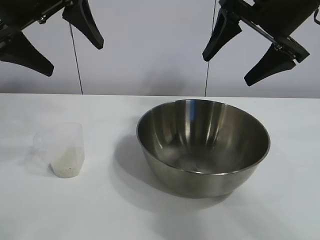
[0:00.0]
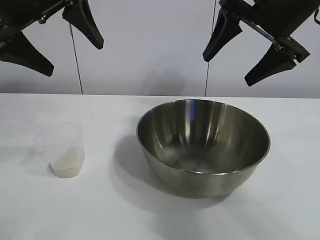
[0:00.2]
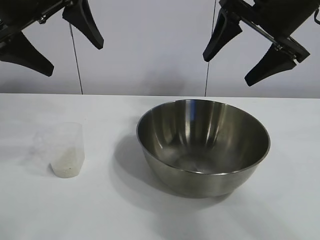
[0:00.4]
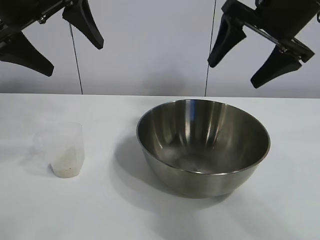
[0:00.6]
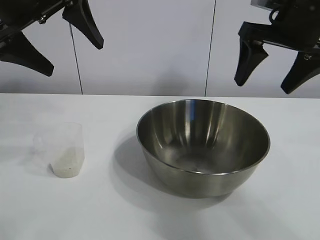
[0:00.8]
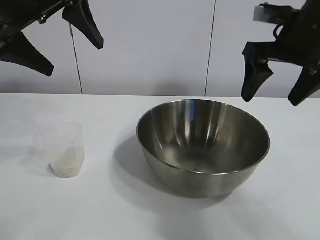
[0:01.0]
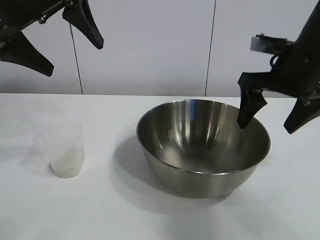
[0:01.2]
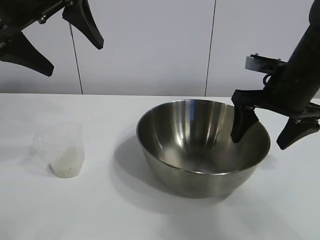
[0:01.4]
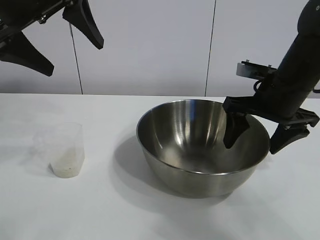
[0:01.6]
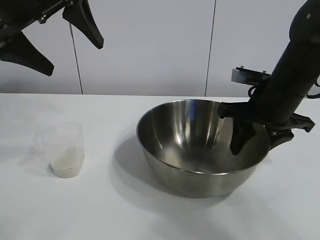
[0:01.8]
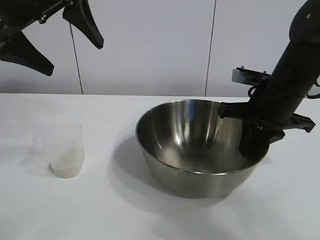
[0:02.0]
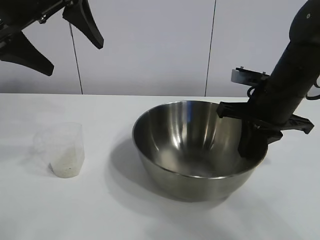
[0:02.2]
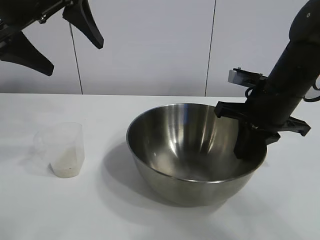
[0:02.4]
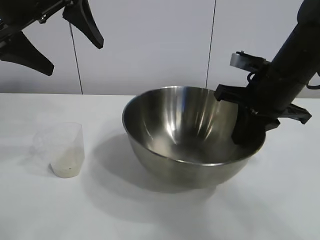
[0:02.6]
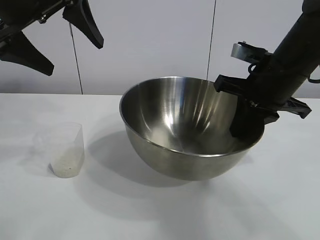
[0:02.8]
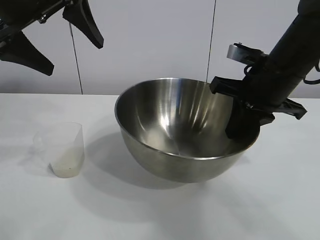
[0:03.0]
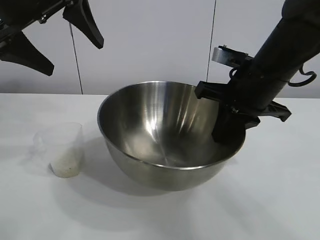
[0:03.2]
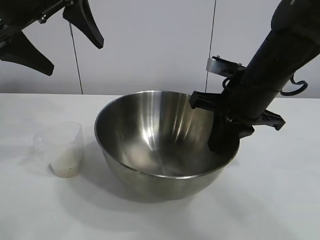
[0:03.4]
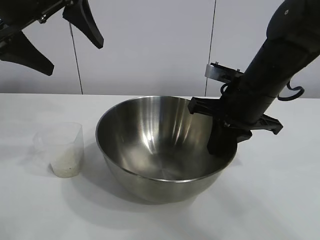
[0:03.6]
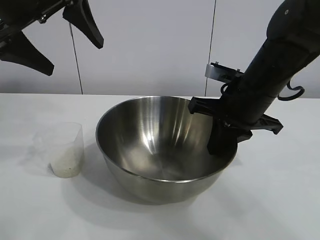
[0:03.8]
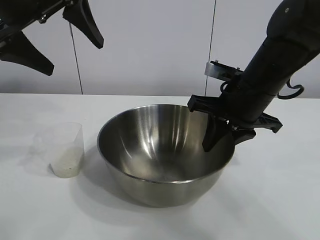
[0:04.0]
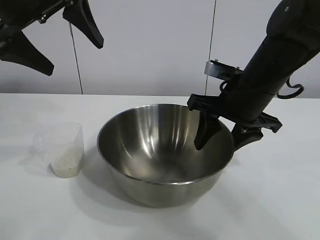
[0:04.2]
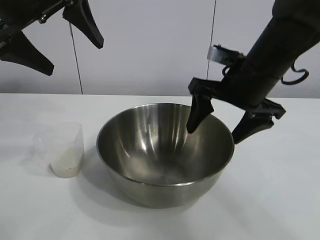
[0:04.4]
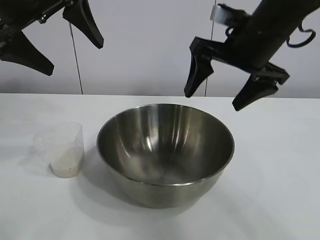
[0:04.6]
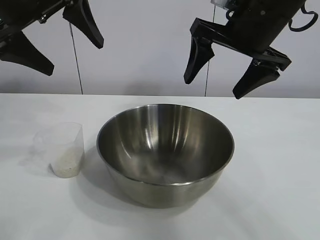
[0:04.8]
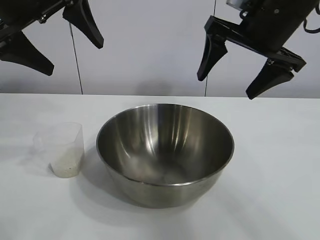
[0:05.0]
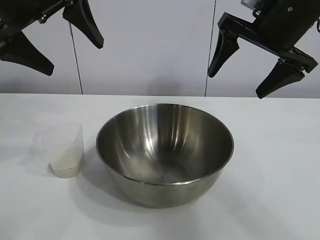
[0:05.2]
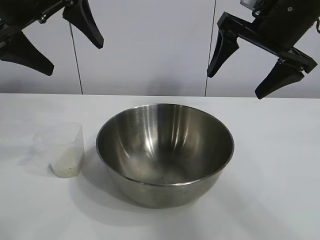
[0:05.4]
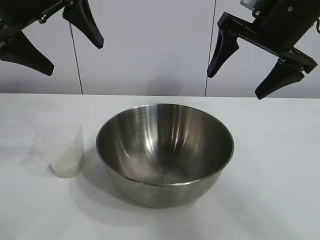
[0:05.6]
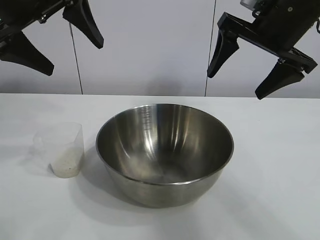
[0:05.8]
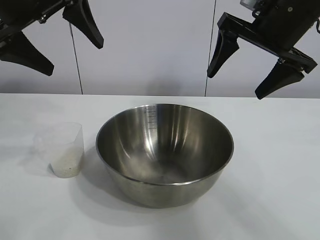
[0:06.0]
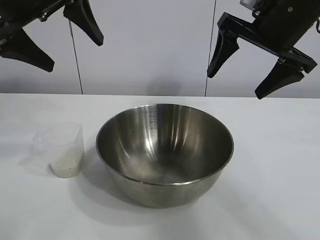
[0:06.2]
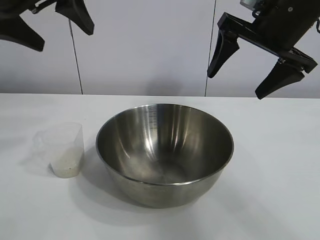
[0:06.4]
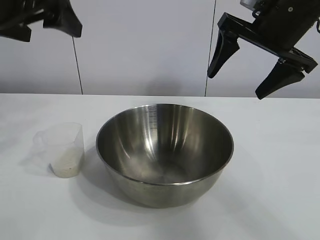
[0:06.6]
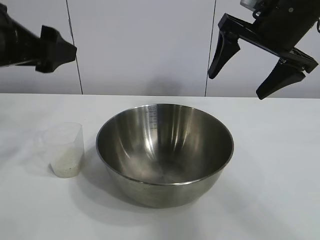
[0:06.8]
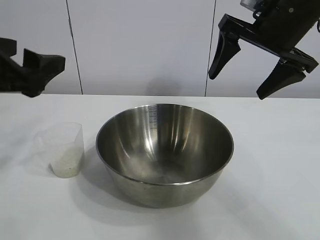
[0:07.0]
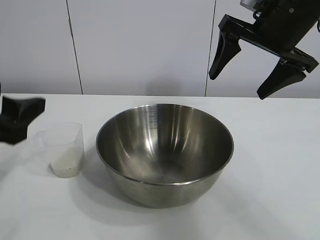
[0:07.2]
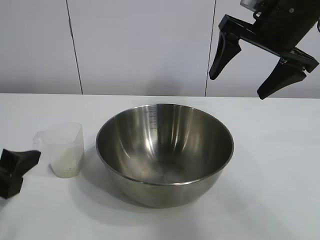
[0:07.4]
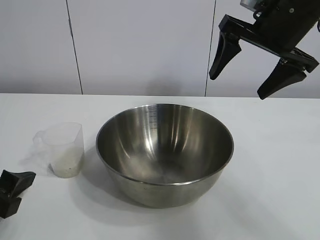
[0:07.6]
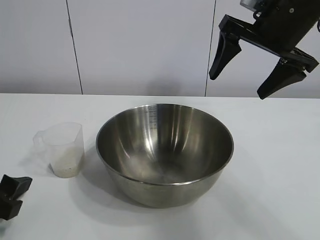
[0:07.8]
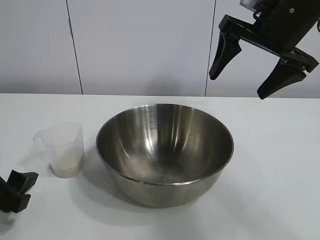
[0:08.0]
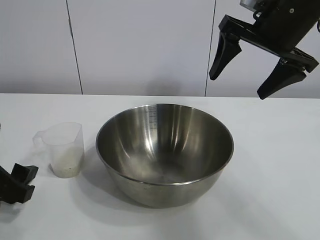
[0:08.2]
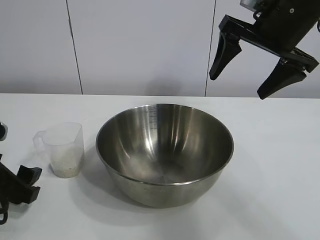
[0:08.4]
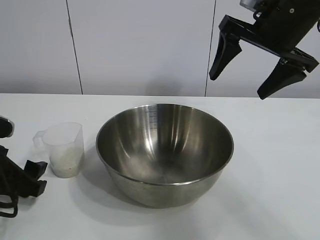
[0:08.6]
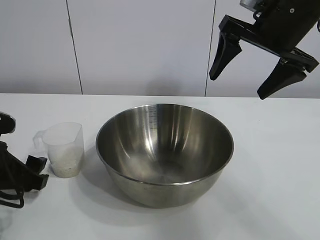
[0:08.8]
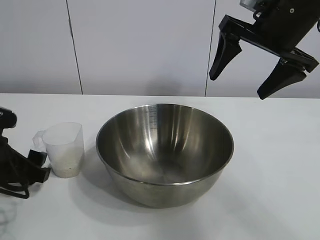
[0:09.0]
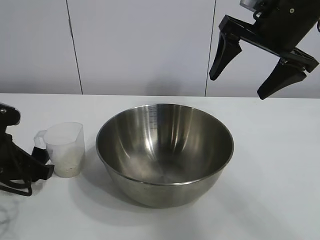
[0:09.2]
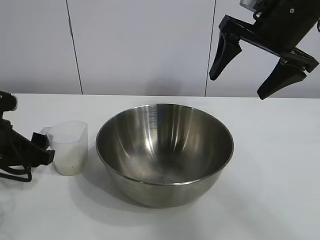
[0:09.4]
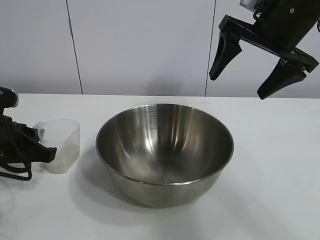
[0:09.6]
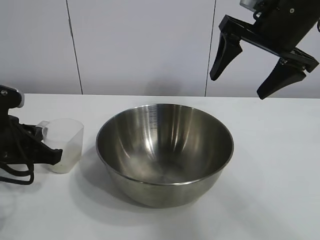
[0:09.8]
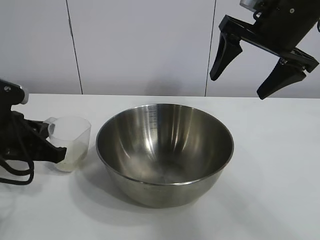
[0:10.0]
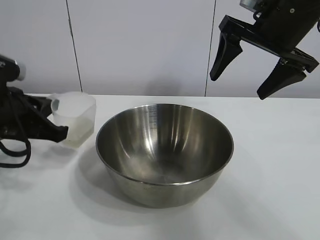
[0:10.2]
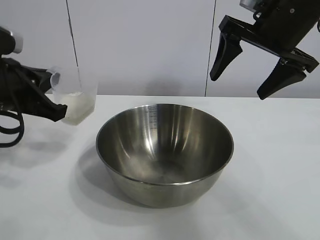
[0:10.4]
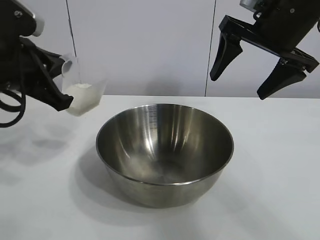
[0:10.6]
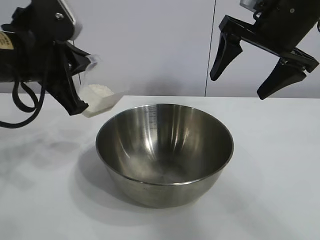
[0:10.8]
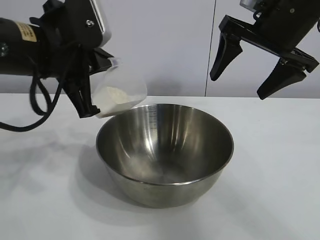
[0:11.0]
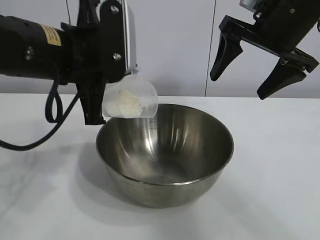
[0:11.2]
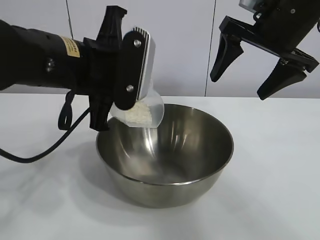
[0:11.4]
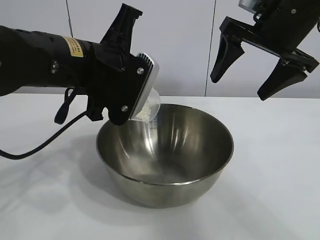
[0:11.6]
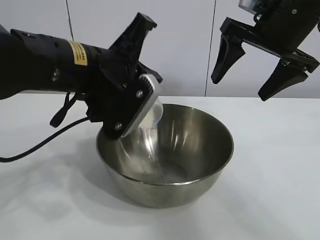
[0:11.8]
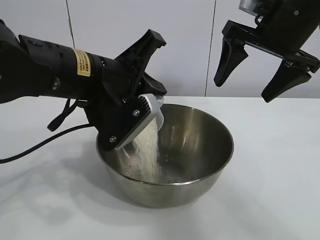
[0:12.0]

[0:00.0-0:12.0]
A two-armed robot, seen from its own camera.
Task of the whole recording: the right gripper grasp the rice container and place it in the center of the table, the left gripper grasp the rice scoop and pour the rice into the rice container.
Step, 0:00.6 to 0:04.0: Move the bowl in the center of view with right gripper.
Step, 0:04.2 to 0:10.0: Grasp the cup with rice in it with left gripper.

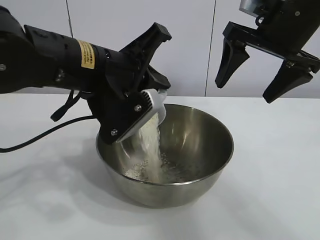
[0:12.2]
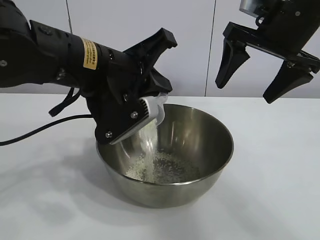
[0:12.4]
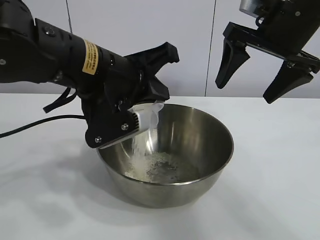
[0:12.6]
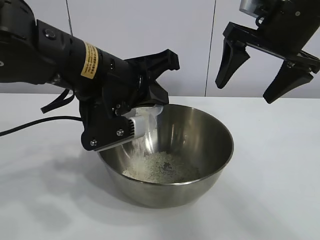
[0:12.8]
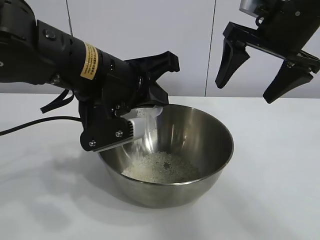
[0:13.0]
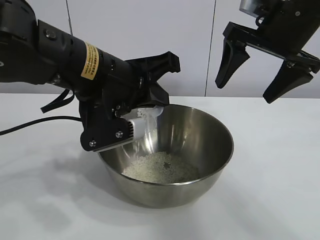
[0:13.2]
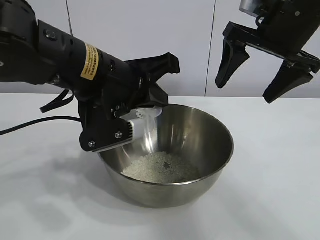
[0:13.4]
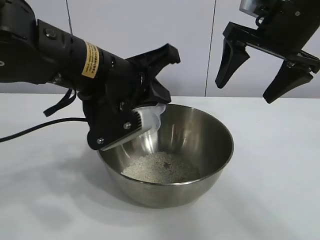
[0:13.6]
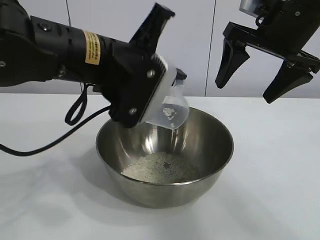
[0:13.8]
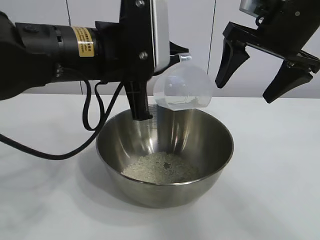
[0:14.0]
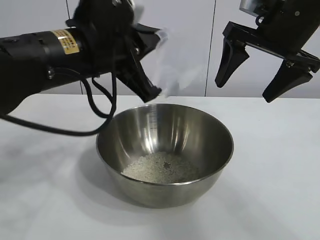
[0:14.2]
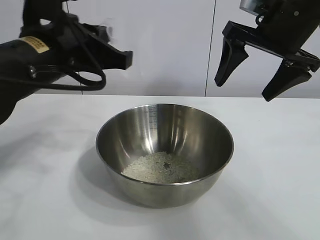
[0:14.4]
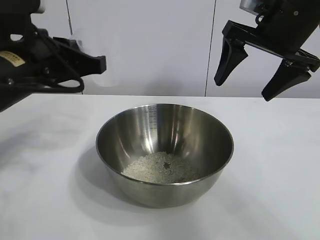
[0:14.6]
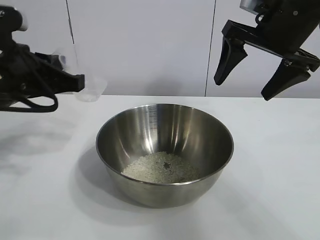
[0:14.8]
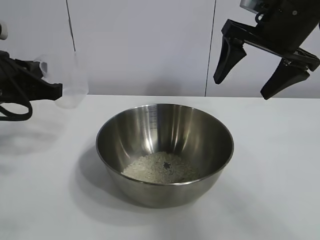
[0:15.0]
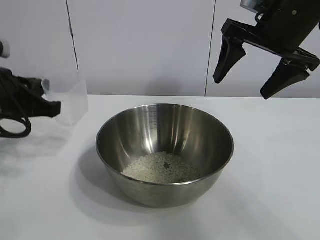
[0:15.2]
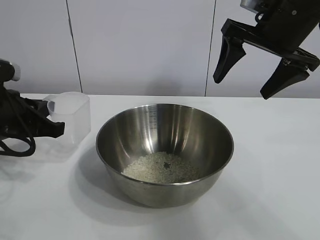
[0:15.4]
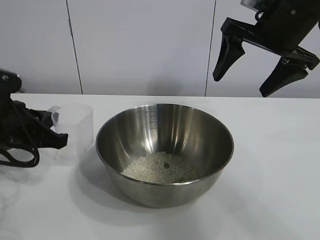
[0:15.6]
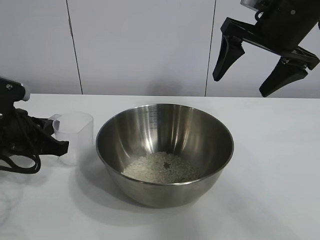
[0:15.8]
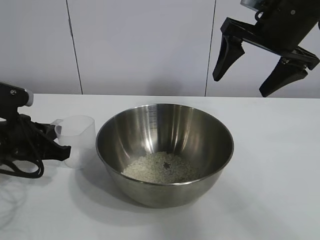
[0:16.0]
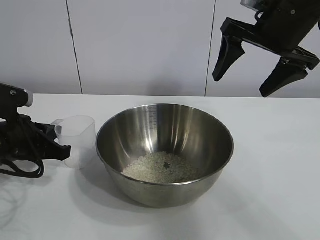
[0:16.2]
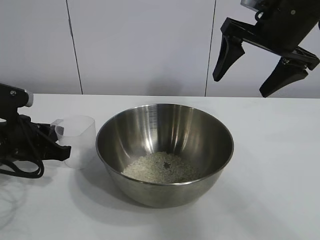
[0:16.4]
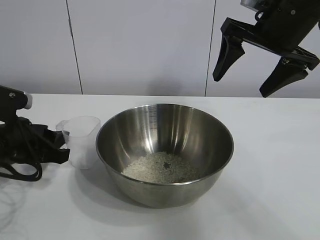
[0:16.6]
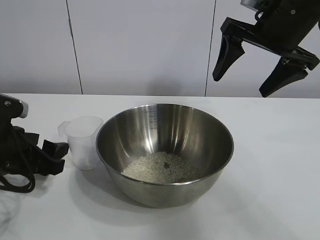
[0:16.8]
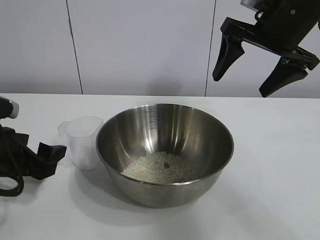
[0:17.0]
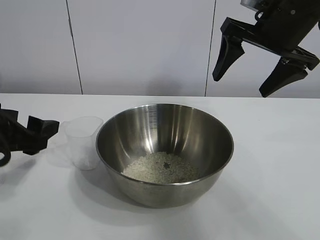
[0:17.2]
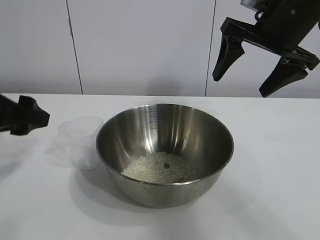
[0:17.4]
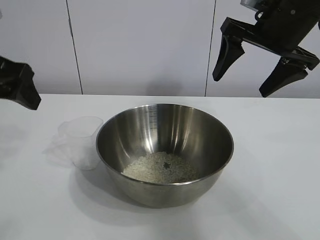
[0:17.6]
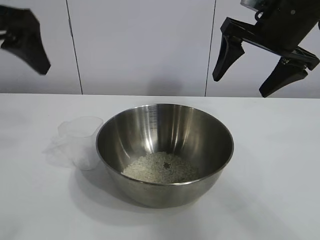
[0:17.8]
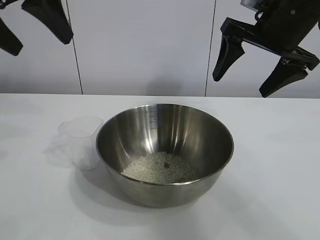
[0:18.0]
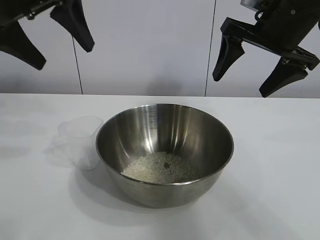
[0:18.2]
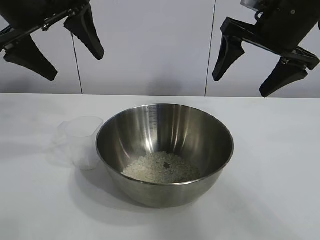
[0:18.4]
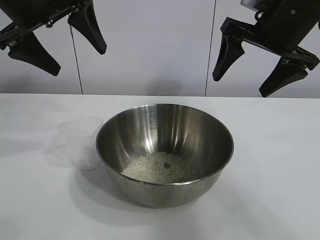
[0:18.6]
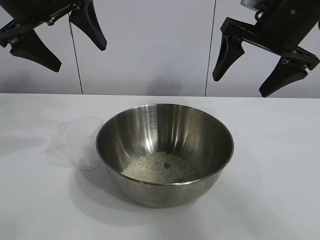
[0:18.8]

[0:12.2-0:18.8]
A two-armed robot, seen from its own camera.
Task of the whole recording: the right gripper grasp the rice container and place it in the center of the table, the left gripper grasp the rice scoop and pour the rice into the rice container.
Step, 0:13.6 to 0:16.4: Place the cup on the table with the left gripper.

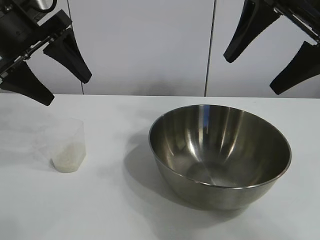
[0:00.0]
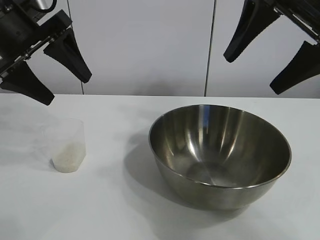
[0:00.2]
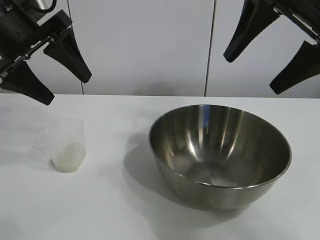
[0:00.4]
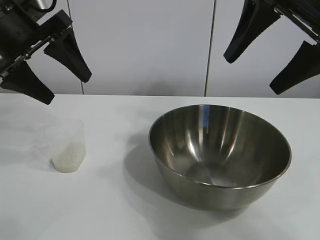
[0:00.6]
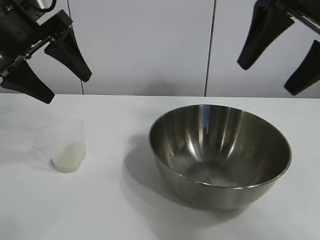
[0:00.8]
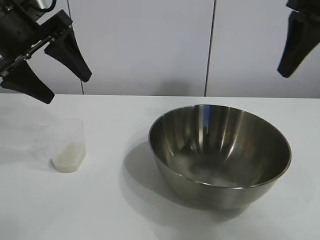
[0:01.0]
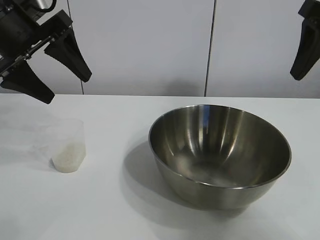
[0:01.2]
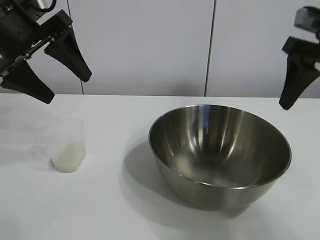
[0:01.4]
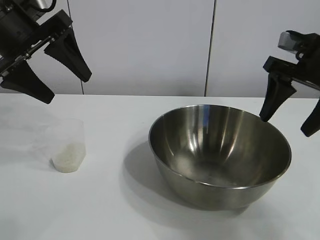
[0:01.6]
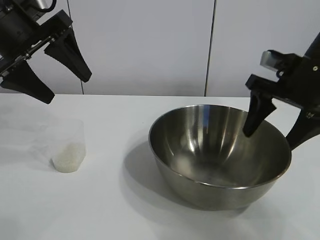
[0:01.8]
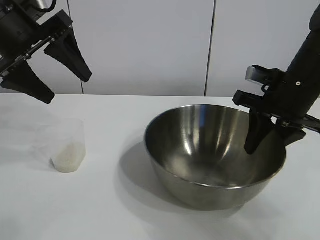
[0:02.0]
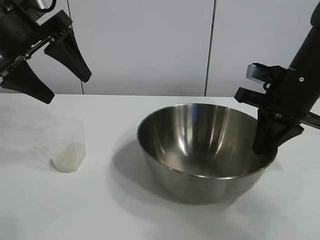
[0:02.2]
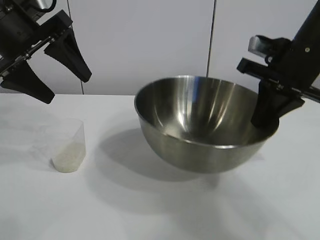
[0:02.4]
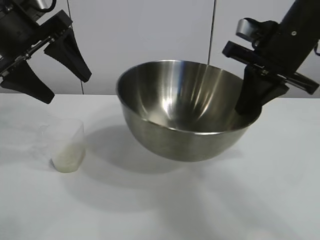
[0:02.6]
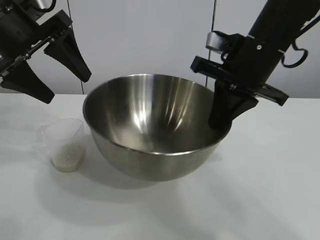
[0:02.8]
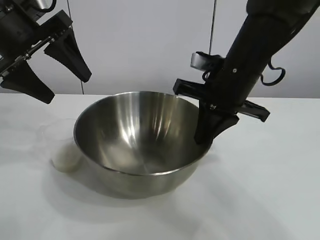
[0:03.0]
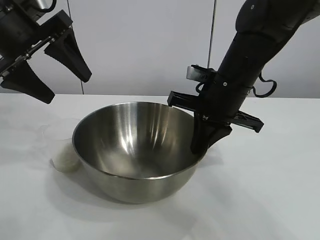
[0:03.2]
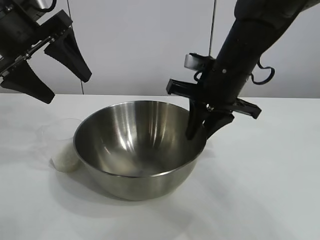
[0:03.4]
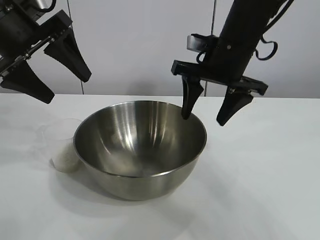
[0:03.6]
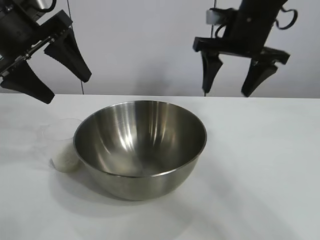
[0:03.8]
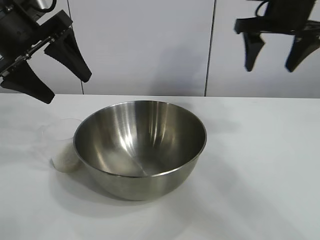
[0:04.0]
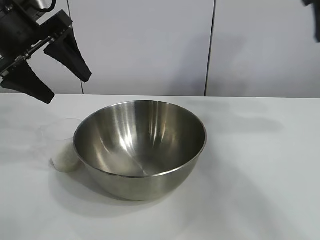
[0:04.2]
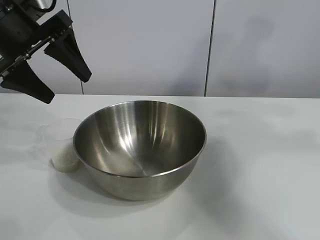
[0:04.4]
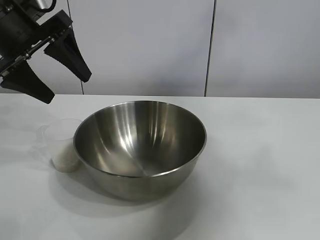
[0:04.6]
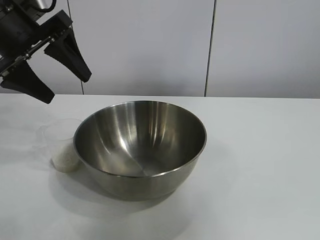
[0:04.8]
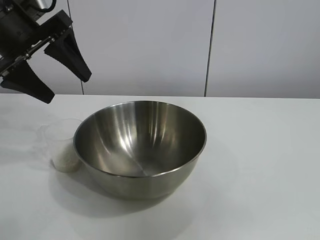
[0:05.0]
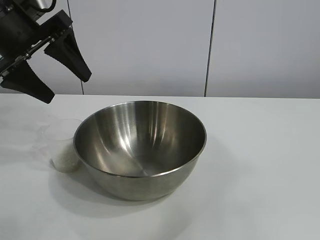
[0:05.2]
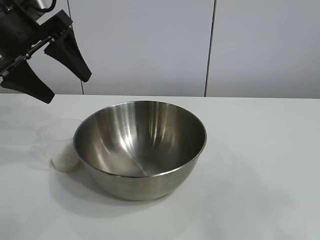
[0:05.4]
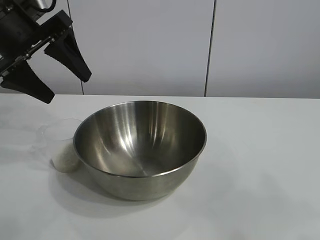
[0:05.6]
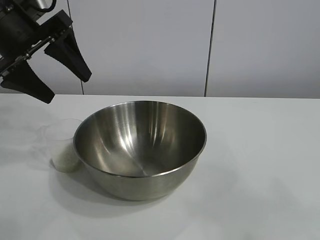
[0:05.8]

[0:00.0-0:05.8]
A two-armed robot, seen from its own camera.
Task of the whole recording: the right gripper grasp the rice container and place it in the center of the table, the left gripper grasp the rice scoop and pour the rice into the rice container.
Step, 0:00.8 to 0:03.6: Move the bowl in the center of view with right gripper.
